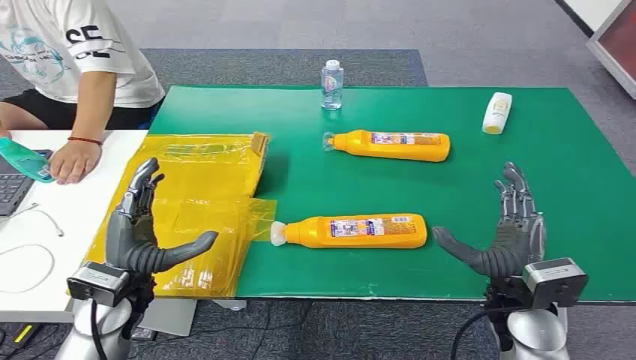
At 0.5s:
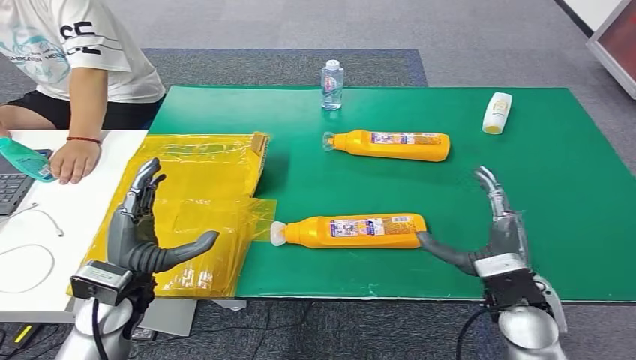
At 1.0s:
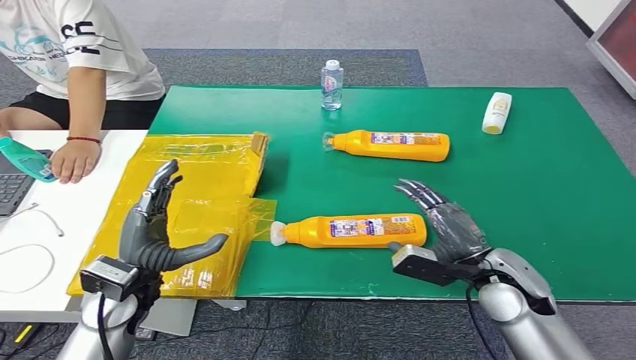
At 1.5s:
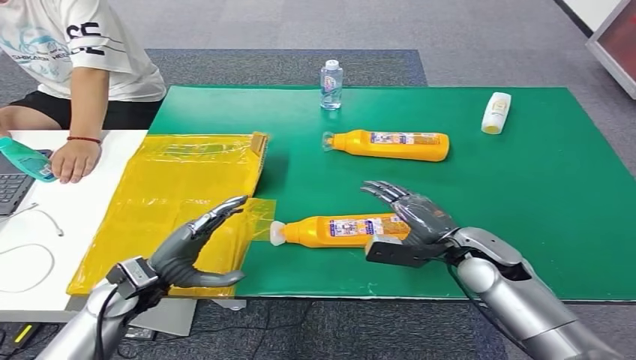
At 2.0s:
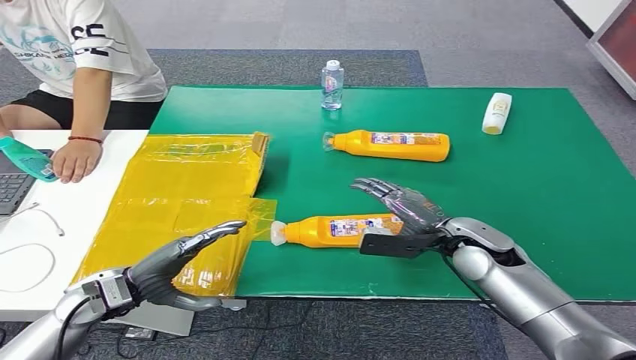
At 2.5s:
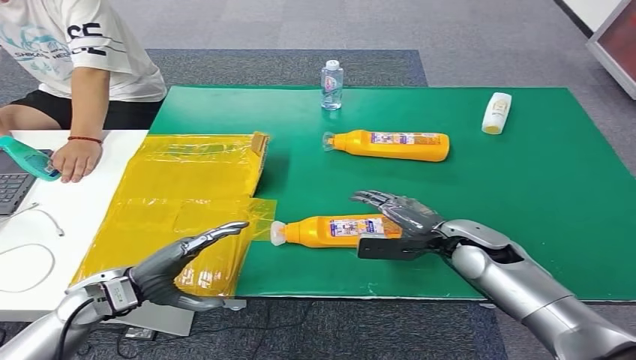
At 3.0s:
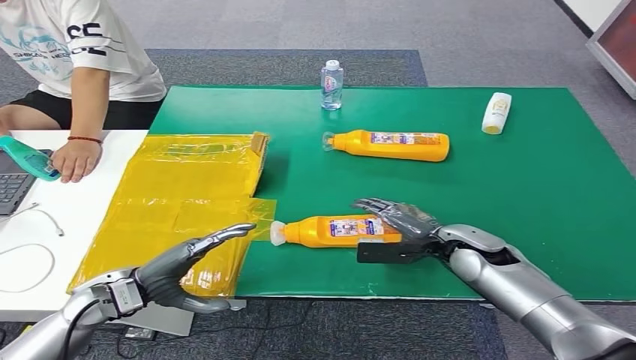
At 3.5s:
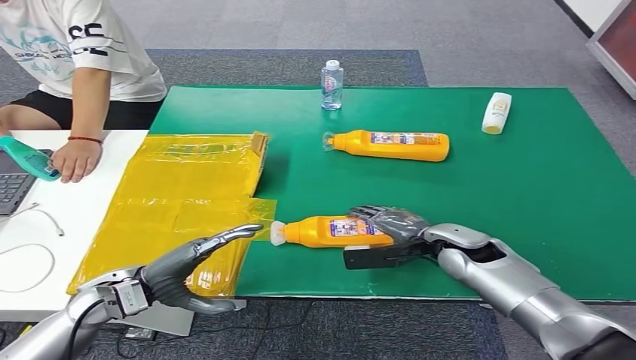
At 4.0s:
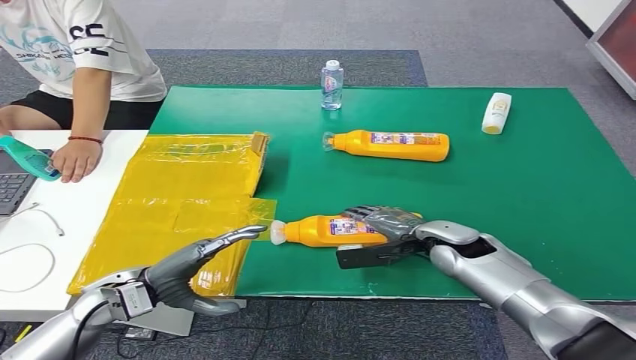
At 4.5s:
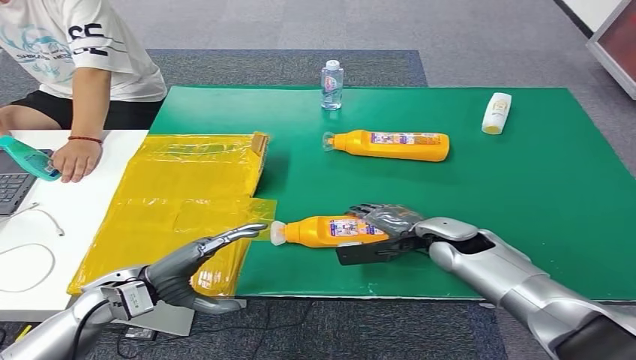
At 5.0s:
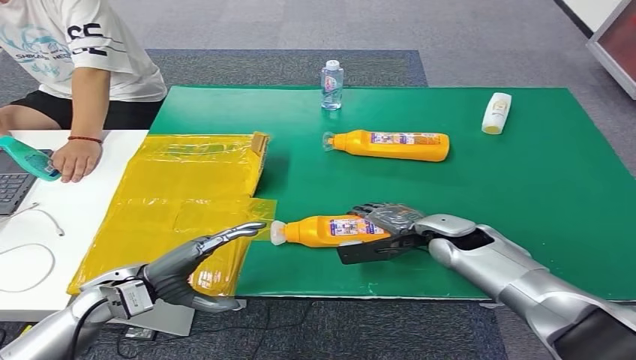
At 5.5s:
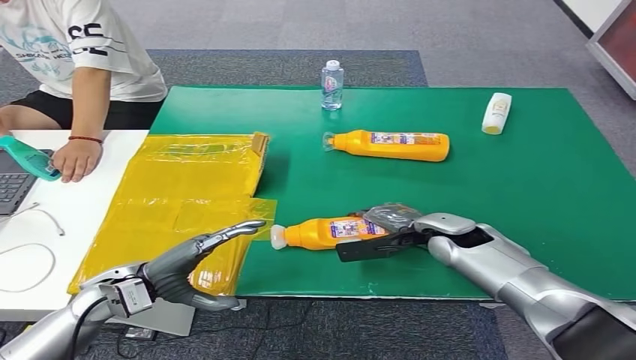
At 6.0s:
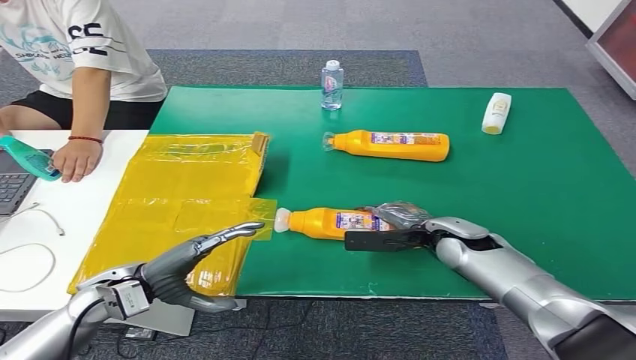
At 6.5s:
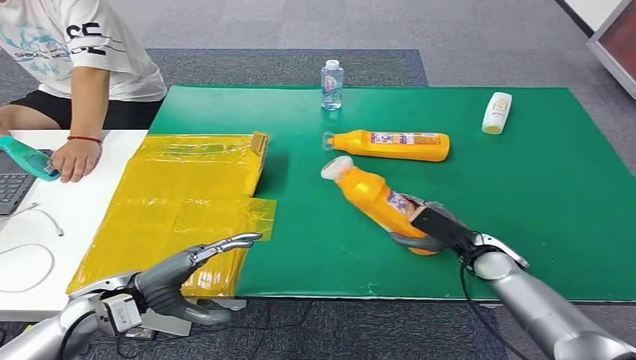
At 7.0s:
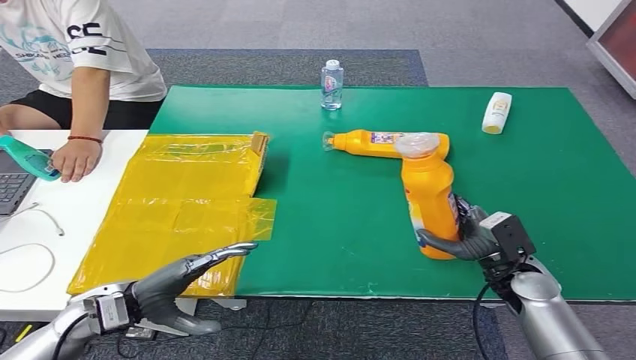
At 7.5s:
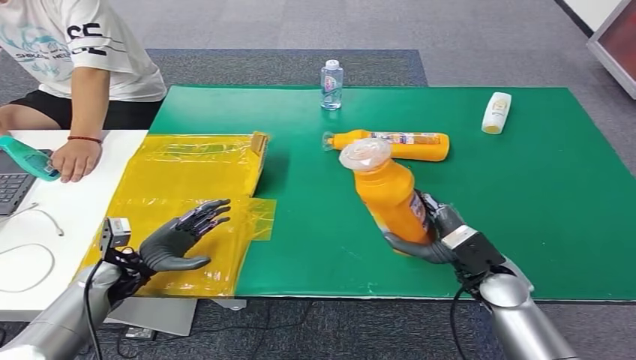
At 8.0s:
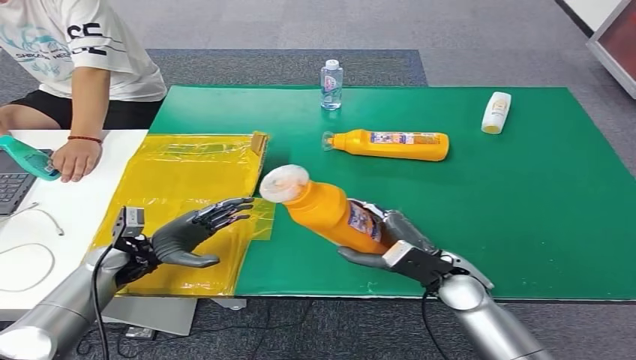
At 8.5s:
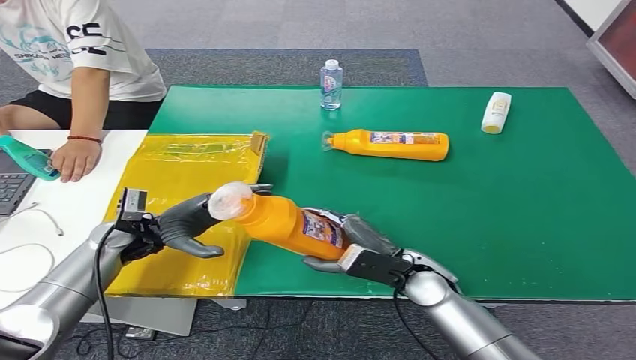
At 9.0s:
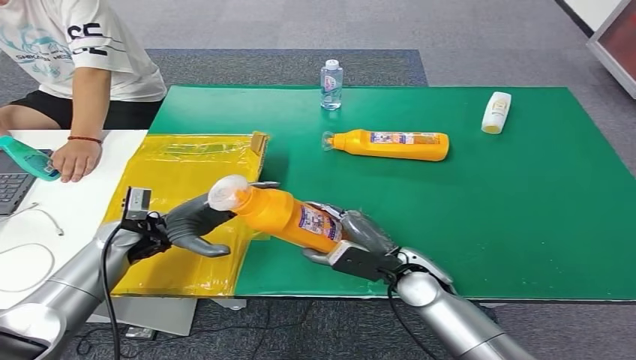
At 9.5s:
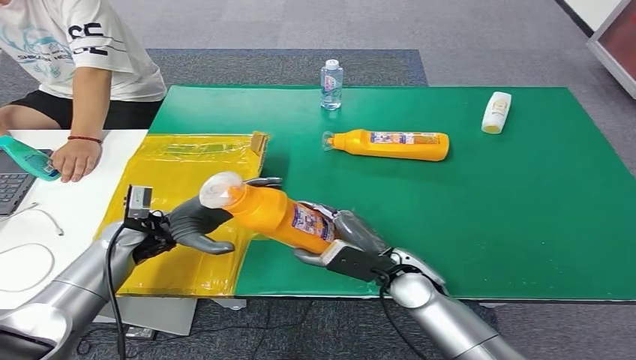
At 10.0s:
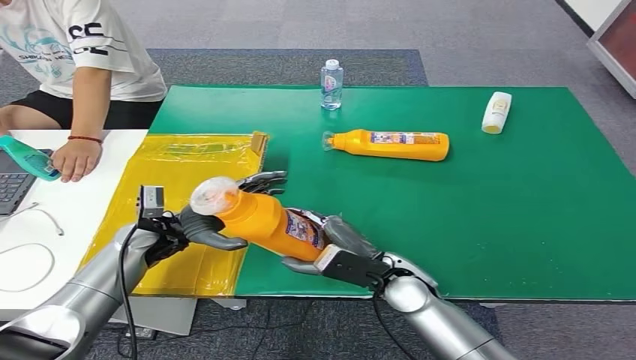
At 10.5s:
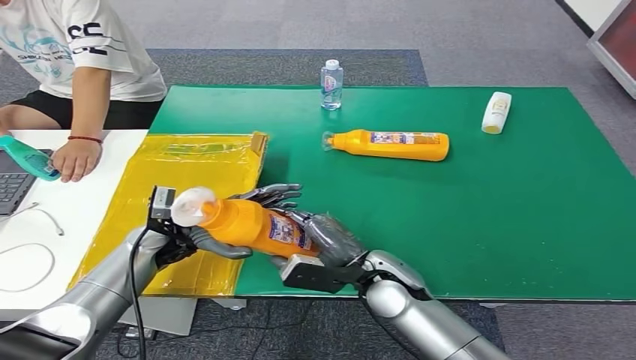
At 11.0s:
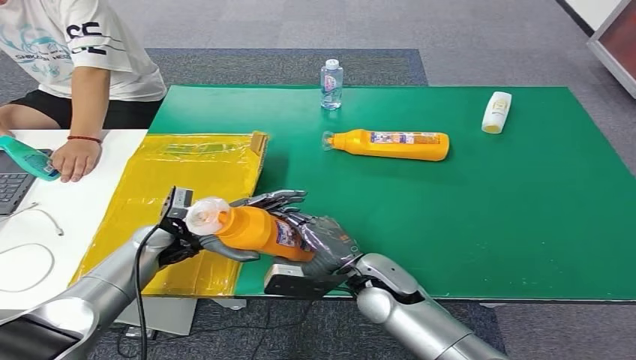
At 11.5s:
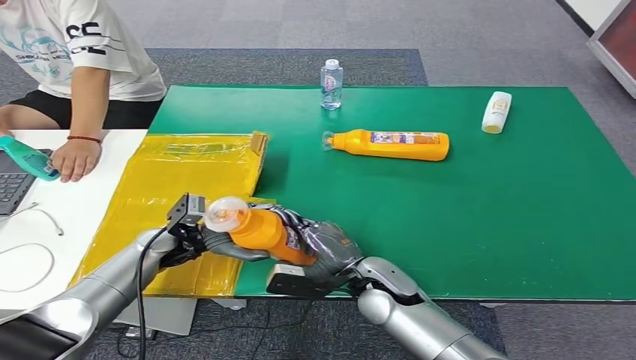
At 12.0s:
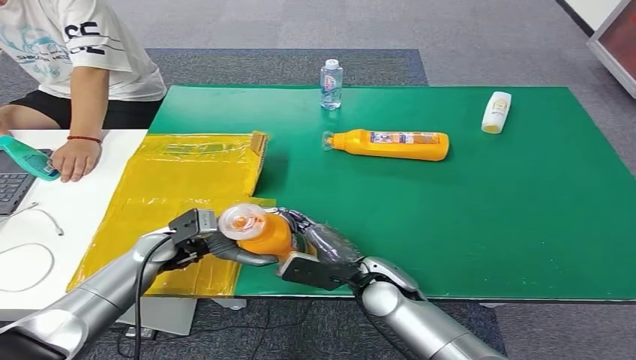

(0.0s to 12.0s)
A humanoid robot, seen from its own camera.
Step, 0.0s - 8.0s: Pick up the bottle from the table.
4.0s - 6.0s: The hands stay close to where they were, moving slightly.
6.0s - 8.0s: The right hand shifts about 10 cm backward, and goes to the right and returns, some 10 cm each way; the left hand moves forward, approximately 5 cm.
8.0s - 10.0s: The left hand goes approximately 5 cm to the right; the right hand goes some 10 cm to the left.

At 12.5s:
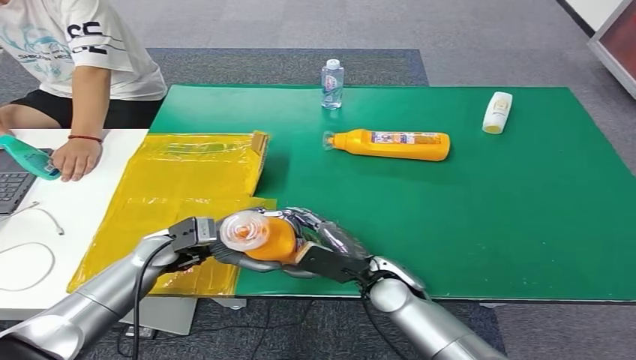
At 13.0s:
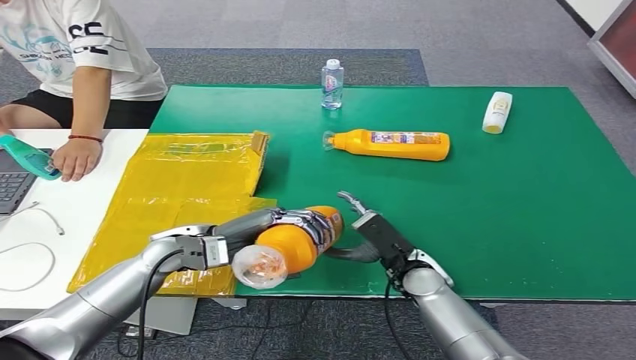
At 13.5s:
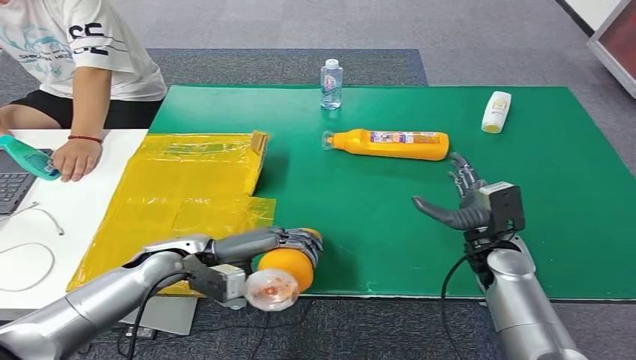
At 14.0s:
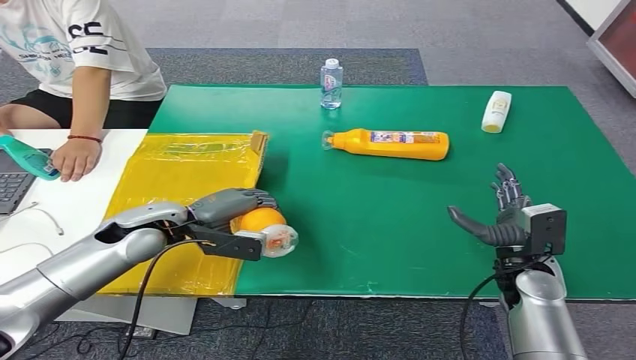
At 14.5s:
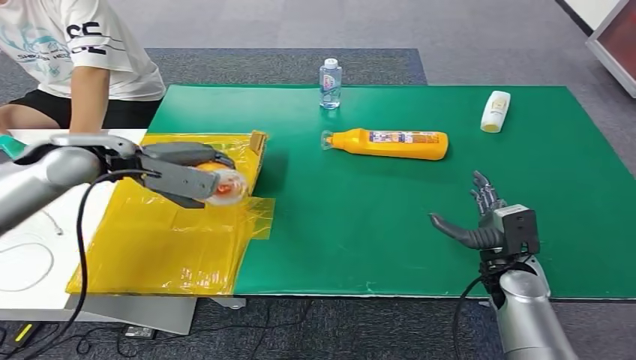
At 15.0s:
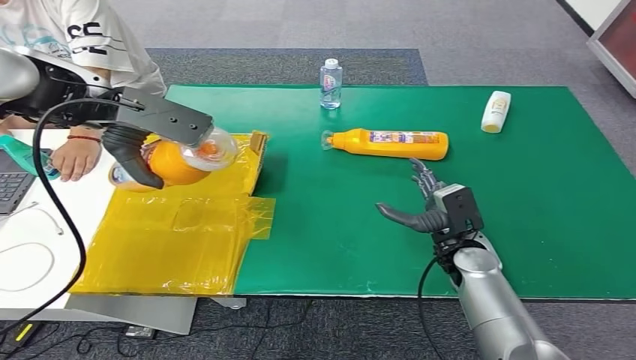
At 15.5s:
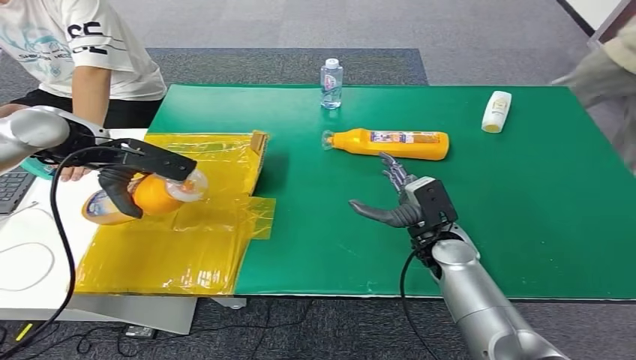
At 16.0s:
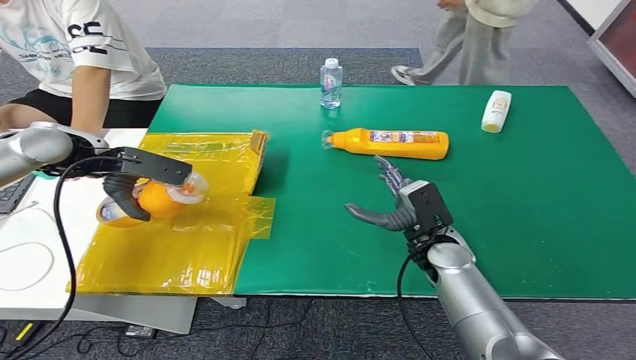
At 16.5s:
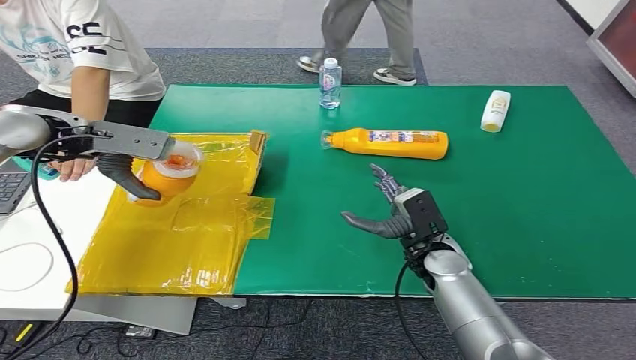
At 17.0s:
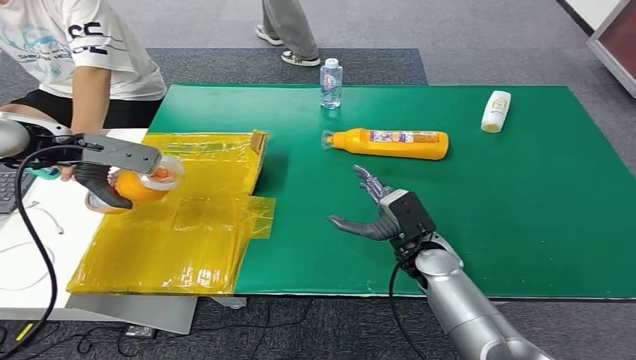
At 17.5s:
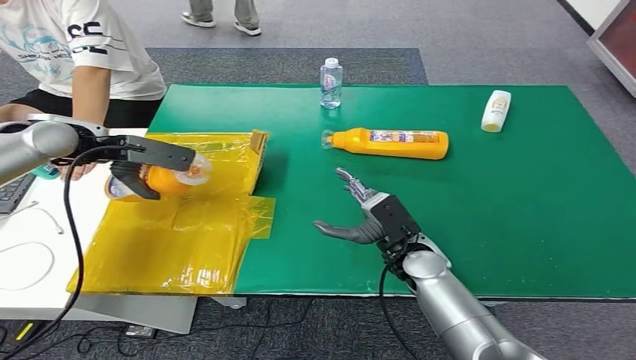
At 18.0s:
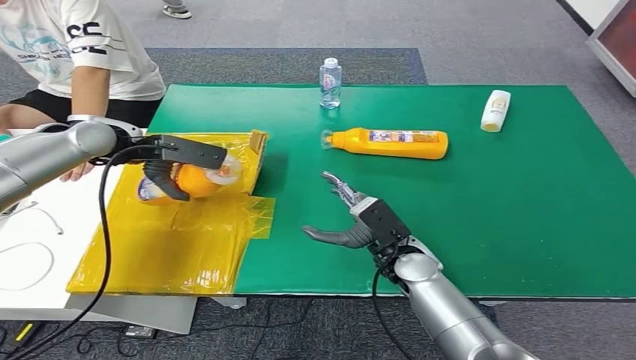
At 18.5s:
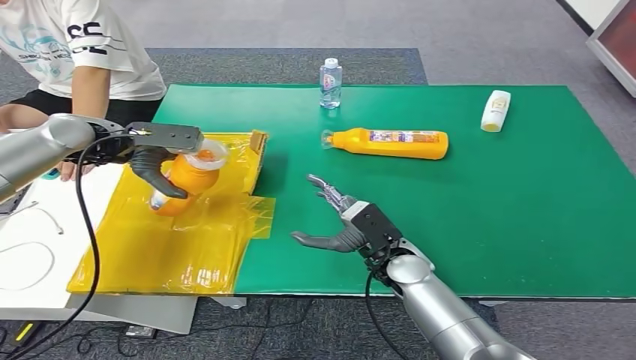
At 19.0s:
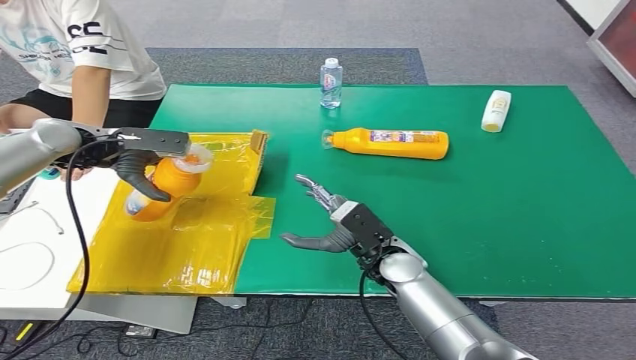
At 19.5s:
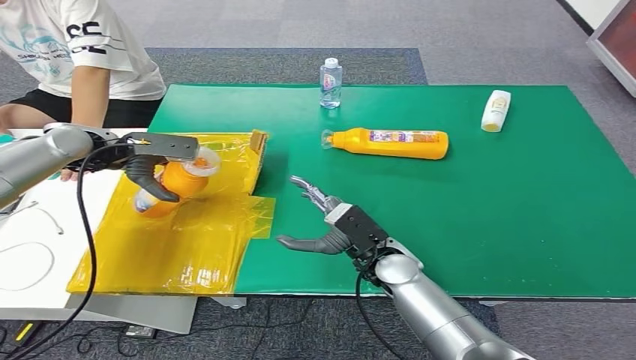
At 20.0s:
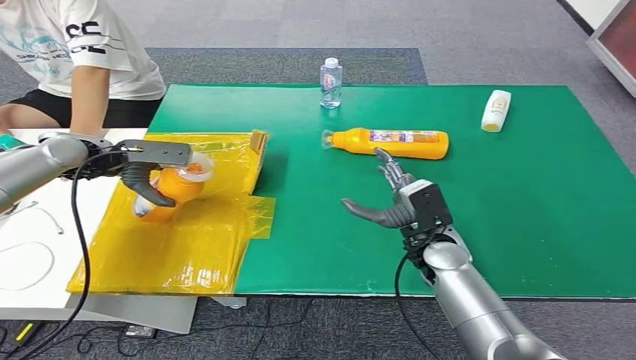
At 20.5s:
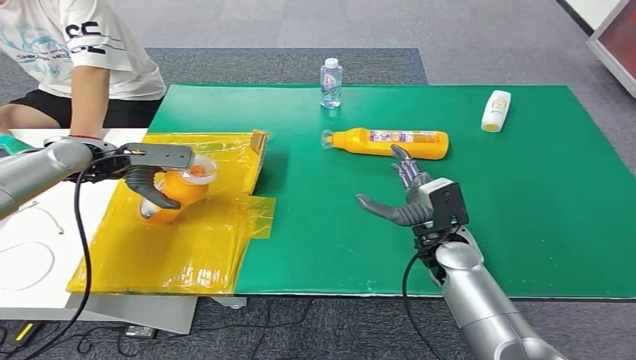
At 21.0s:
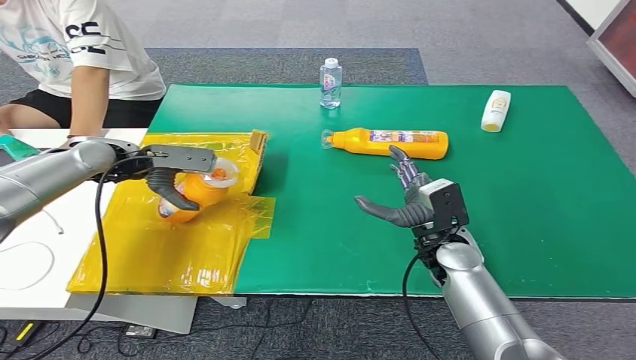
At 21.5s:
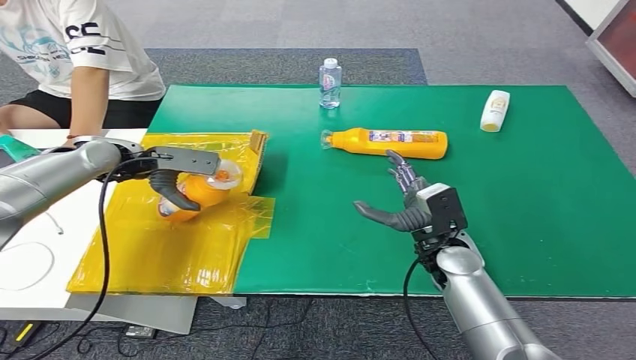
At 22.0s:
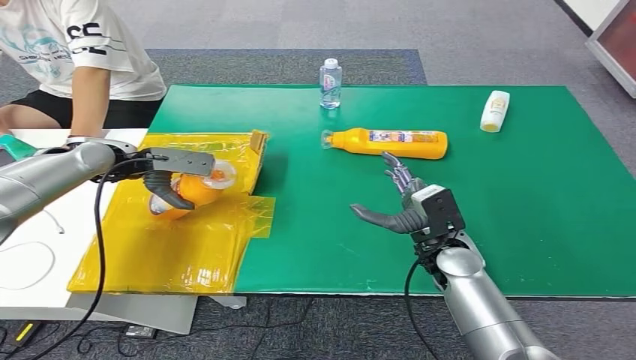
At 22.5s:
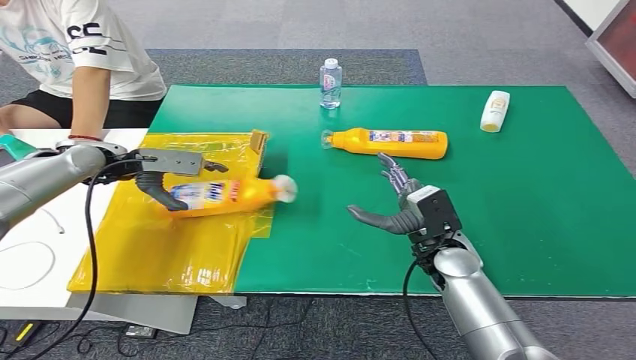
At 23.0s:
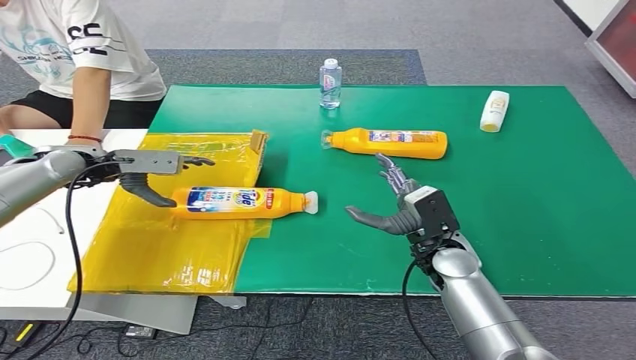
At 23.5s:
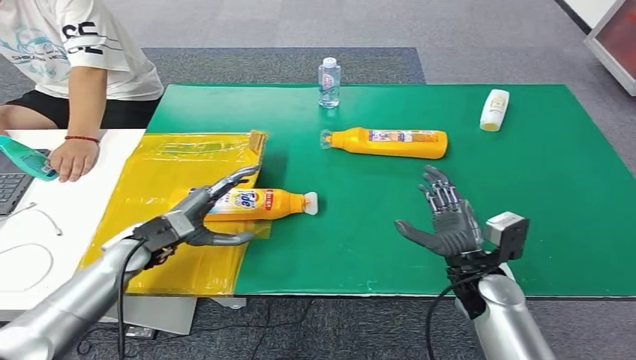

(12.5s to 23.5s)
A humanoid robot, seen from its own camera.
Step, 12.5s - 23.0s: Turn the bottle to the front side.
14.5s - 16.0s: The right hand travels to the left by approximately 10 cm, while the left hand shifts approximately 5 cm to the left, and moves roughly 15 cm upward and comes back.
16.0s - 18.0s: The right hand moves approximately 5 cm.
18.0s - 20.0s: The left hand shifts some 5 cm to the left.
20.0s - 21.5s: There are only small adjustments of the hands.
